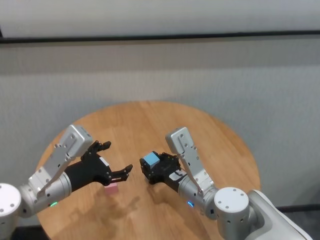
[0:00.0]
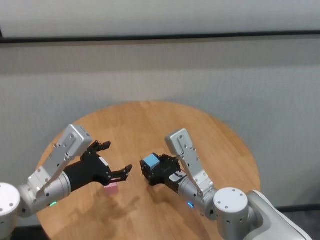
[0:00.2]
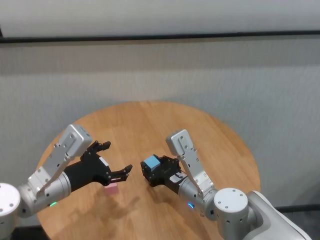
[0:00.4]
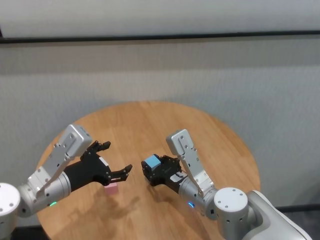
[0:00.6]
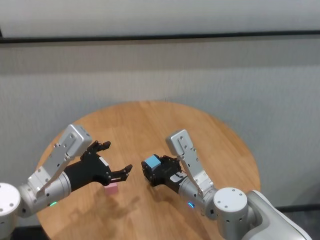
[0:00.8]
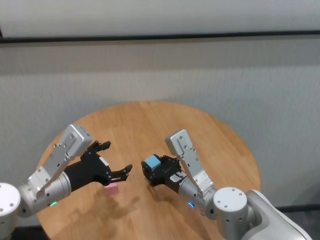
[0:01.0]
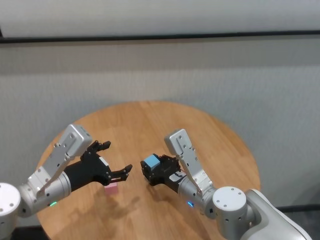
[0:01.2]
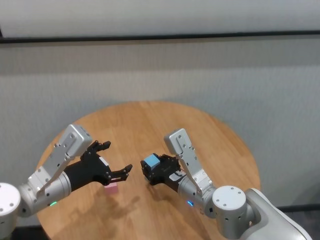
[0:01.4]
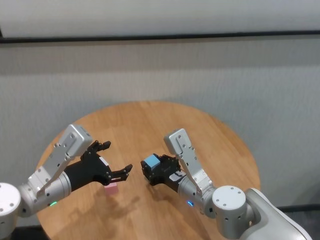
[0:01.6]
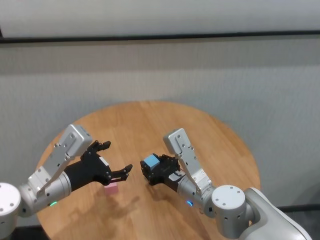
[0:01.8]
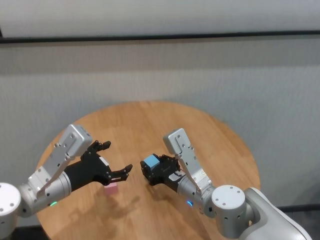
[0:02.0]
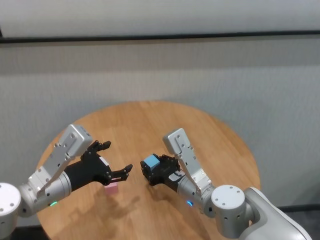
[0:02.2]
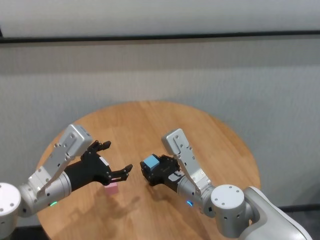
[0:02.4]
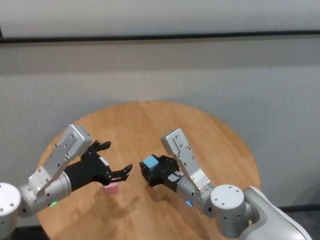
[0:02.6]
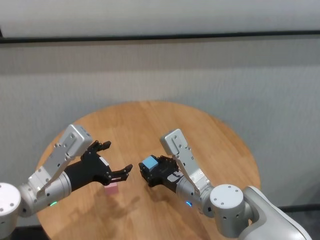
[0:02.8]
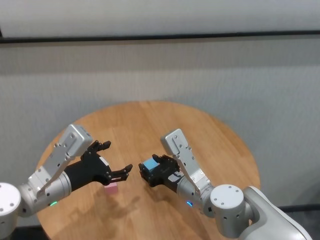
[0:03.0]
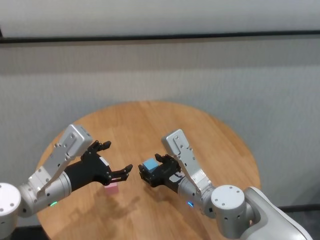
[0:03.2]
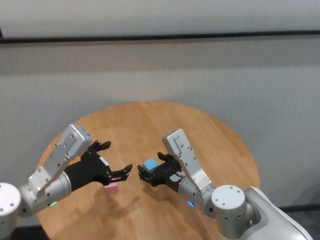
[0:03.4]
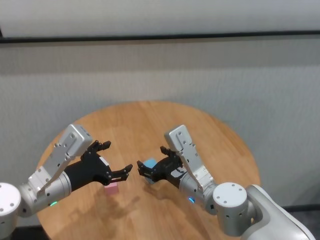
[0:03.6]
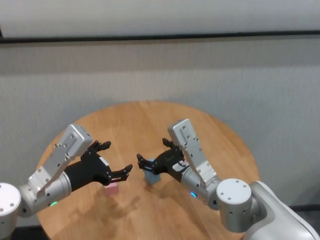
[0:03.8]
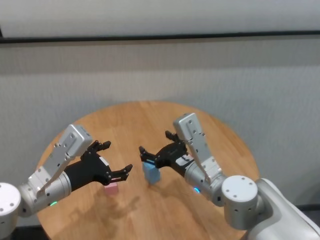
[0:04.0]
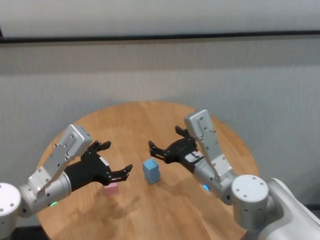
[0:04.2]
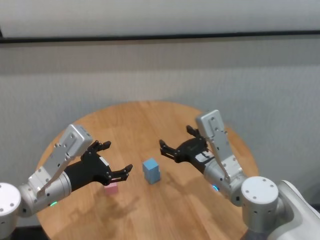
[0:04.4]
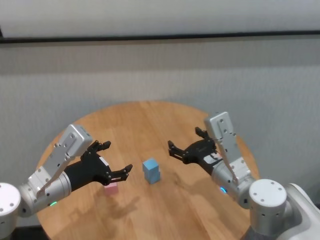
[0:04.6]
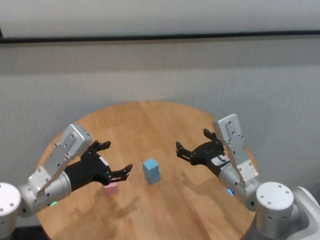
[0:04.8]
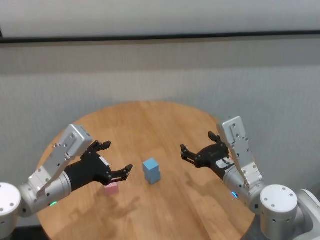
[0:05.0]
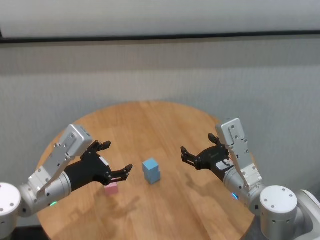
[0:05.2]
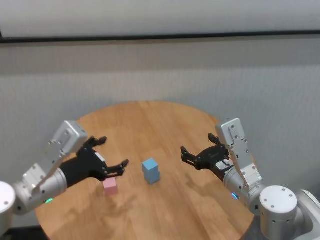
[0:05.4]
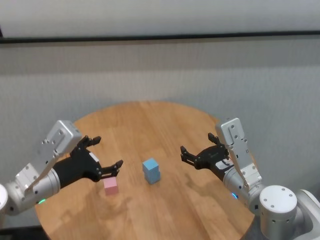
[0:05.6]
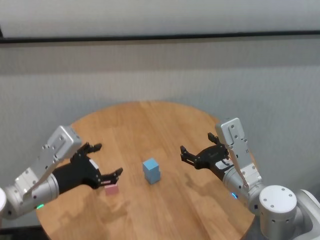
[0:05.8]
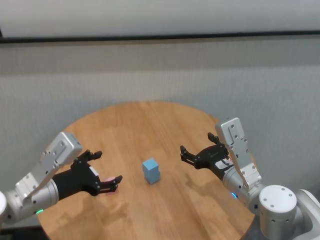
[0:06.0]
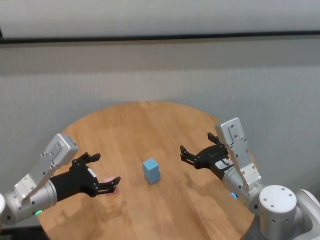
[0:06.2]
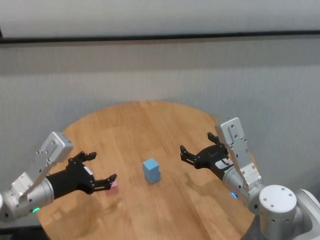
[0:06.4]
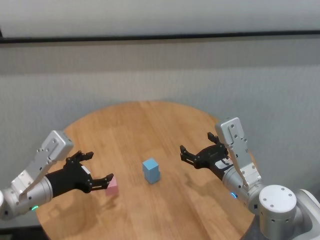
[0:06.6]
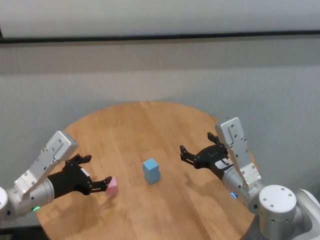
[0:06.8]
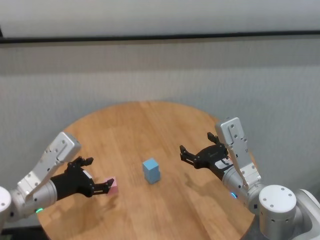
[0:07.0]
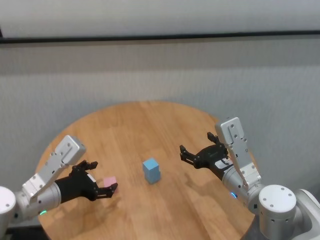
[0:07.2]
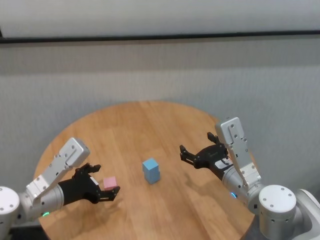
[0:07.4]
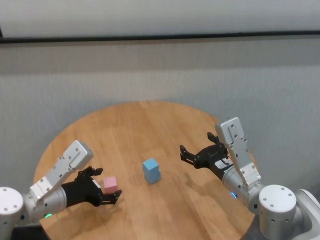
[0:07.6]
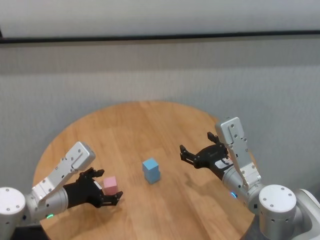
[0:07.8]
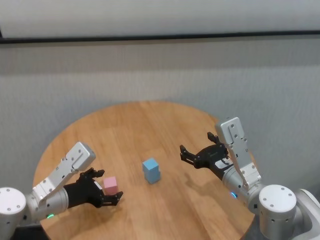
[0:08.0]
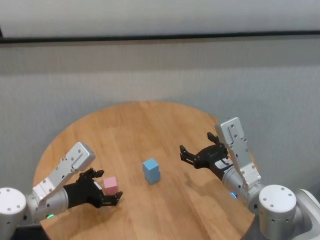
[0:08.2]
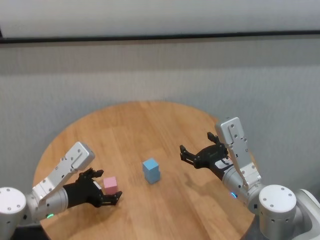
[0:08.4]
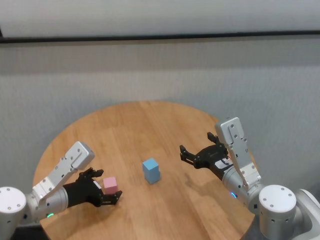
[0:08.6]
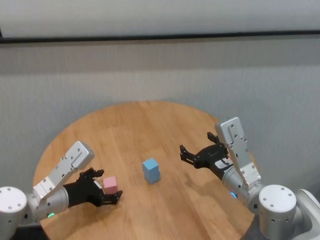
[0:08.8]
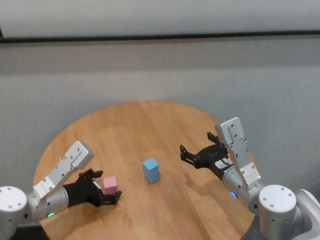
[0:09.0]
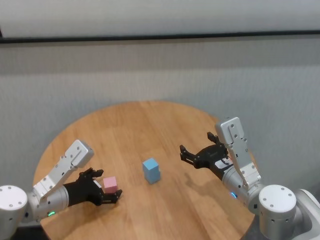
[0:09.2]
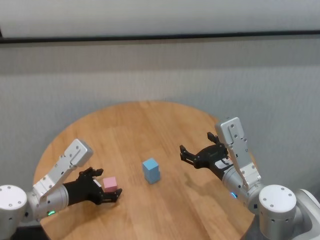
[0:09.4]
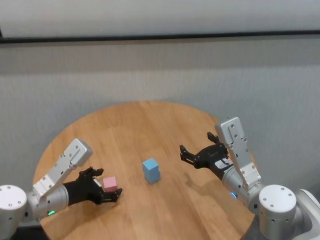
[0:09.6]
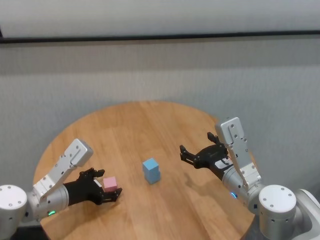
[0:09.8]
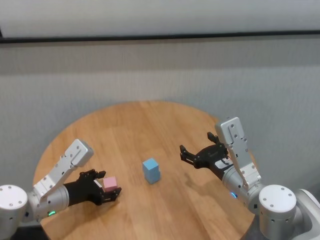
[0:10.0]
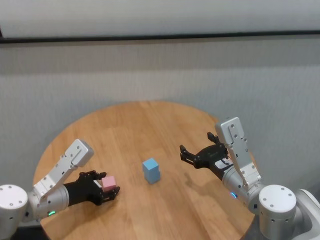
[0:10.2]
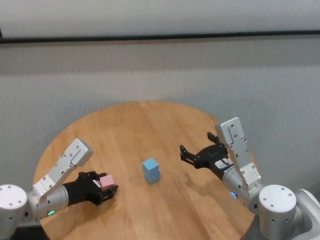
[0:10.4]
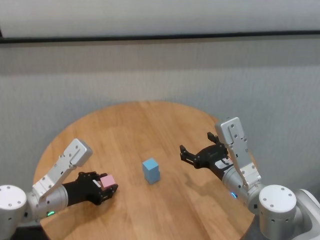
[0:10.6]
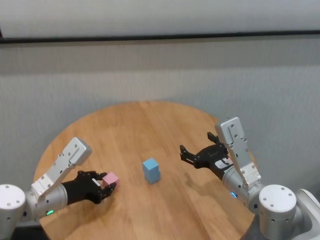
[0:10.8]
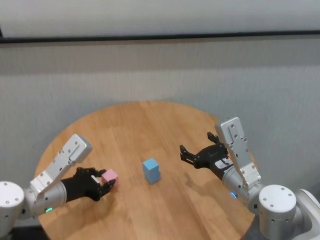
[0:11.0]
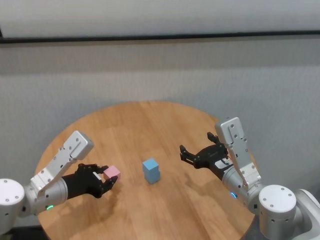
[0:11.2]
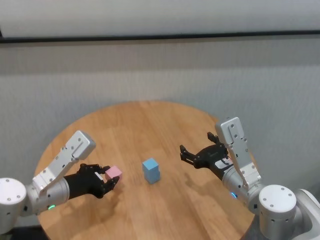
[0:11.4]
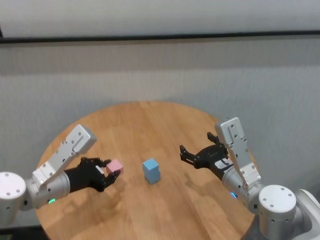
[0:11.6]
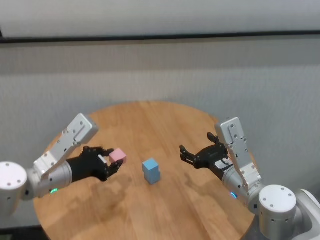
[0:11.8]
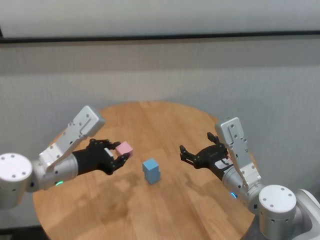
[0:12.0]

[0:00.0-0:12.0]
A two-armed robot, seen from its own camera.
Task of the whole recording: stack building blocks on the table.
Step, 0:00.0 to 0:03.4: Place the blue building block on the blue building blocks with right gripper.

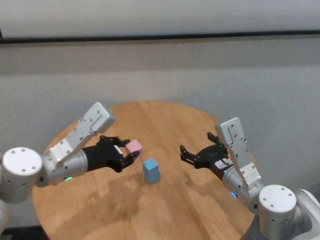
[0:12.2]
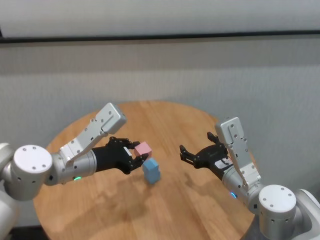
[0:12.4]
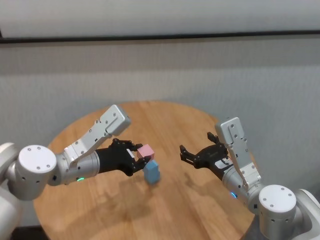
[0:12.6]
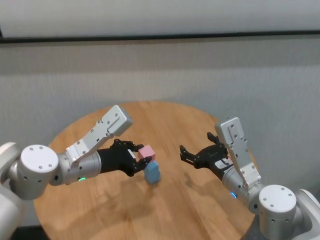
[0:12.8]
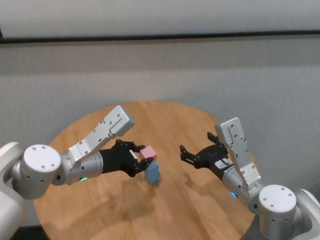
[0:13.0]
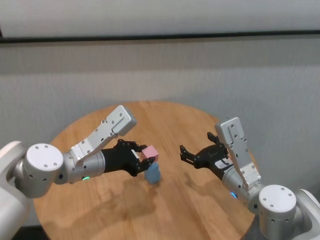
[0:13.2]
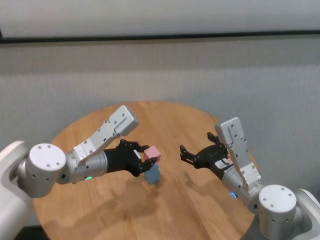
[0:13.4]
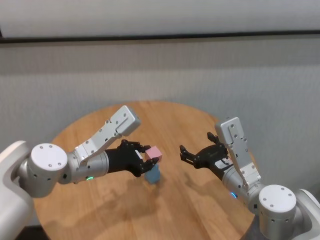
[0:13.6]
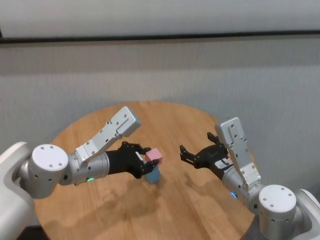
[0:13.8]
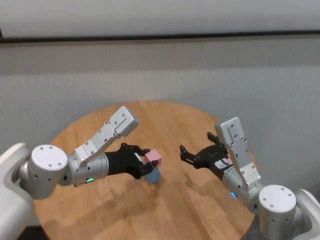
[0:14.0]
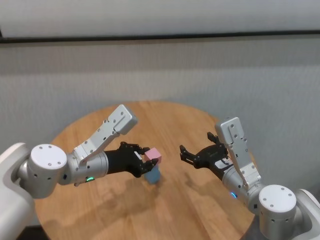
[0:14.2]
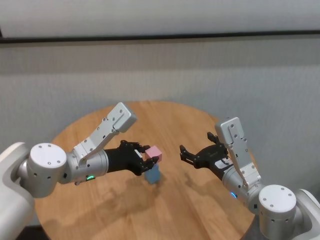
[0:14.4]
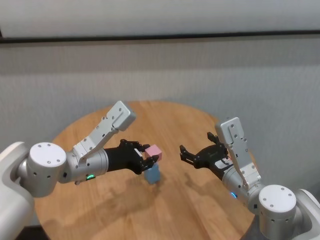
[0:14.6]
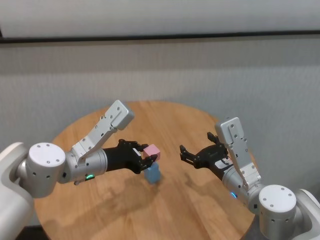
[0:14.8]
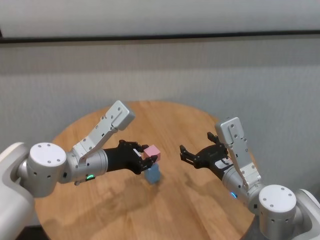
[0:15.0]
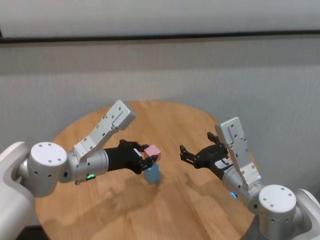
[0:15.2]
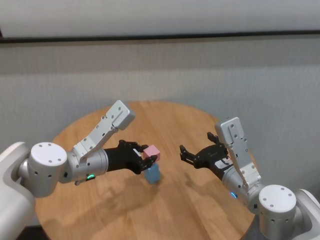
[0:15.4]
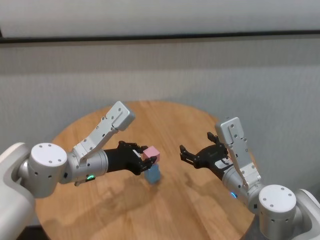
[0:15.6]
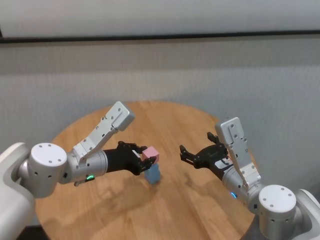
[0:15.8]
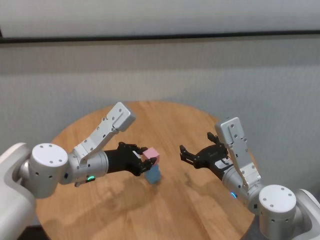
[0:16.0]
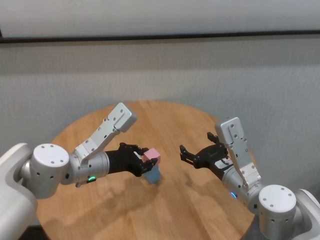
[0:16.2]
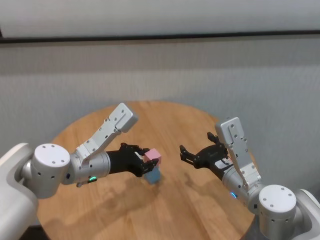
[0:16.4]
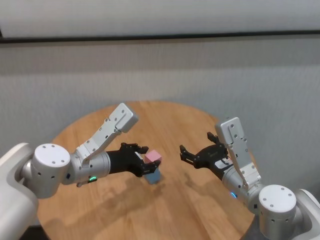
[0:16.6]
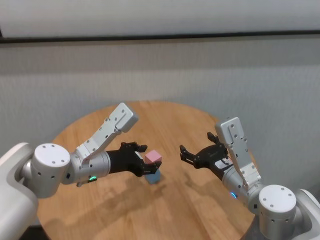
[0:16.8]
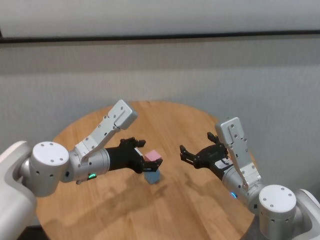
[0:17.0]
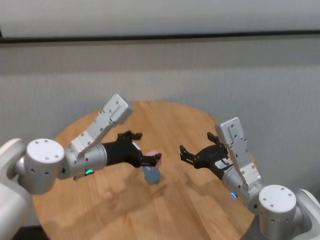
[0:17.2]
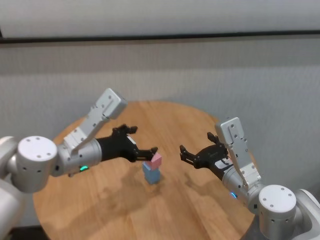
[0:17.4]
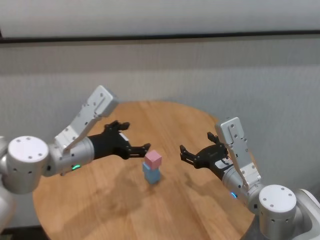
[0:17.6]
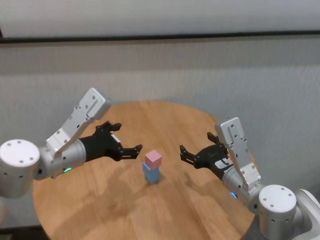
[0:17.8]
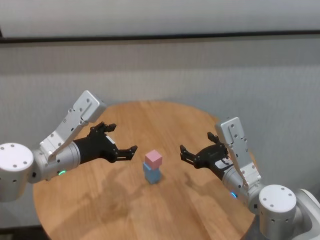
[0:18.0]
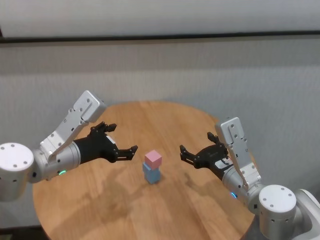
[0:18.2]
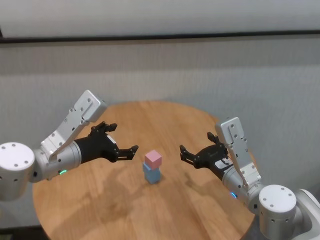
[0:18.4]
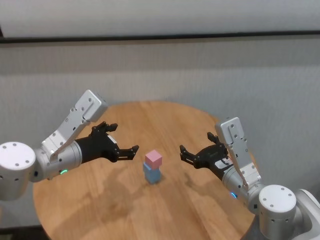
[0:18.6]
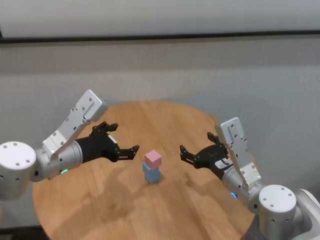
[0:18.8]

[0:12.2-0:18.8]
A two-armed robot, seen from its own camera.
Task of the whole recording: stack building blocks on the table.
Step, 0:12.2 to 0:17.0: Place the pink building block on the blue building blocks with left gripper.
